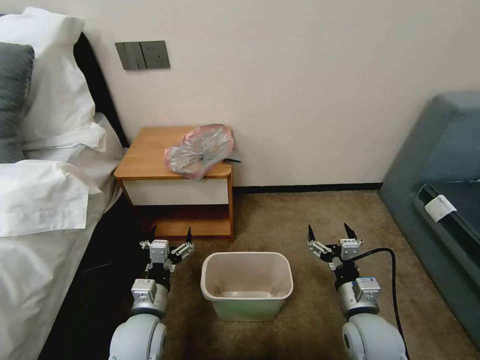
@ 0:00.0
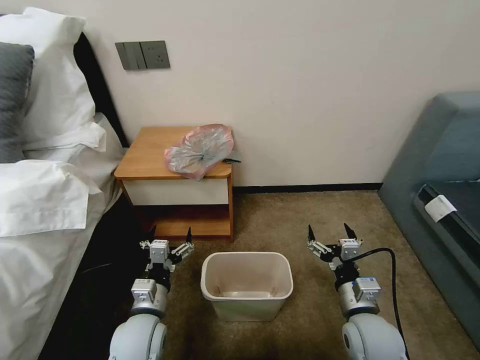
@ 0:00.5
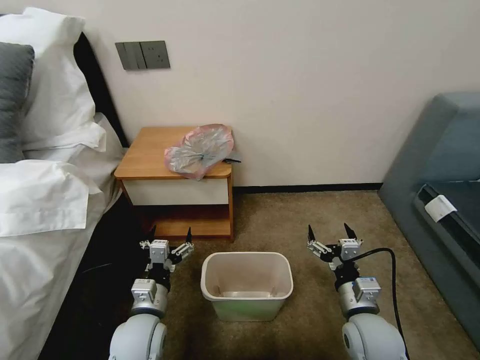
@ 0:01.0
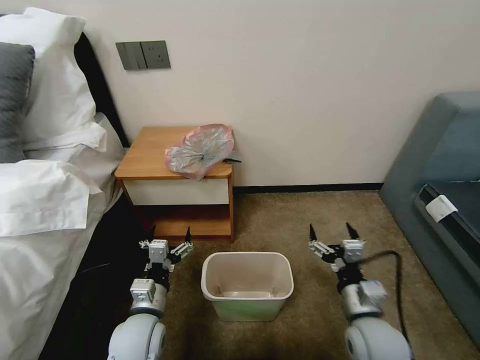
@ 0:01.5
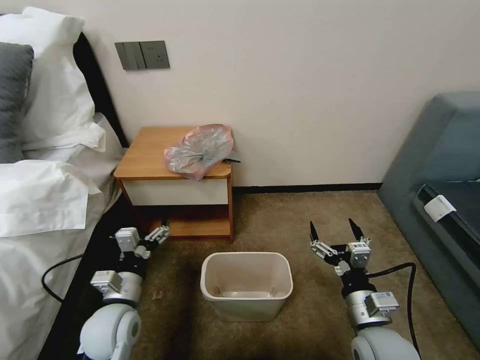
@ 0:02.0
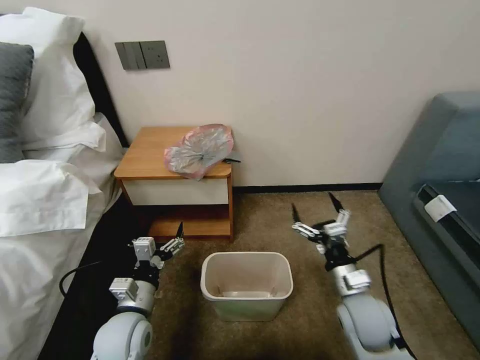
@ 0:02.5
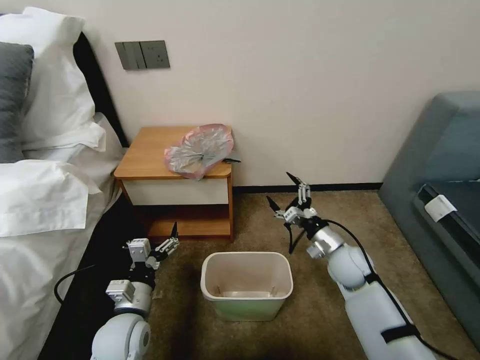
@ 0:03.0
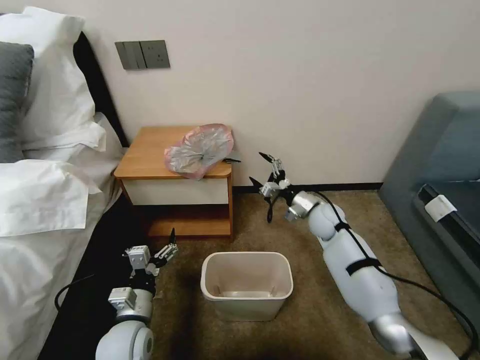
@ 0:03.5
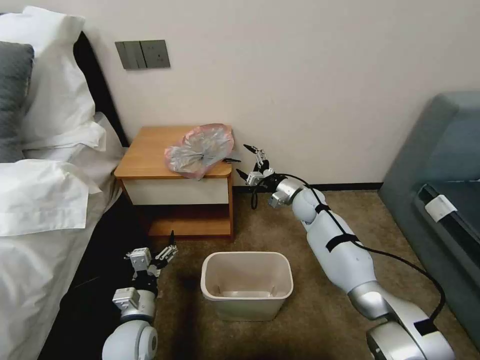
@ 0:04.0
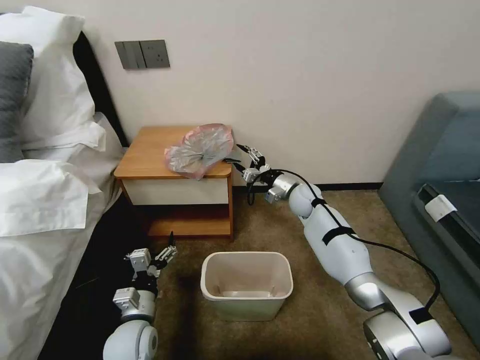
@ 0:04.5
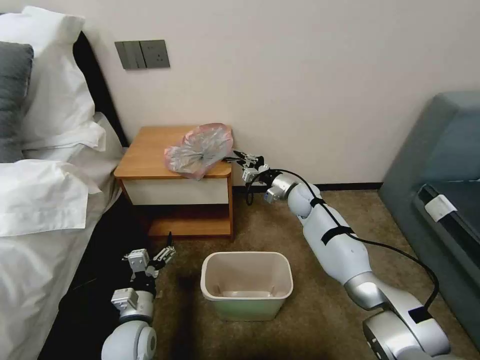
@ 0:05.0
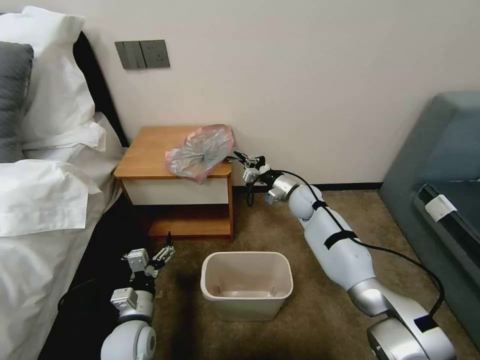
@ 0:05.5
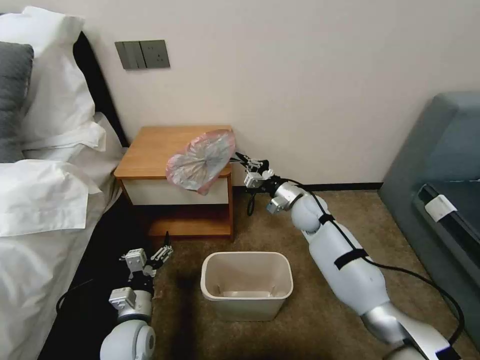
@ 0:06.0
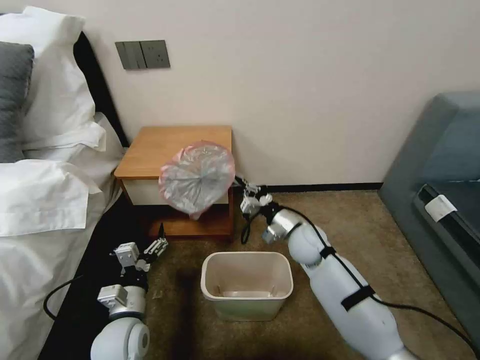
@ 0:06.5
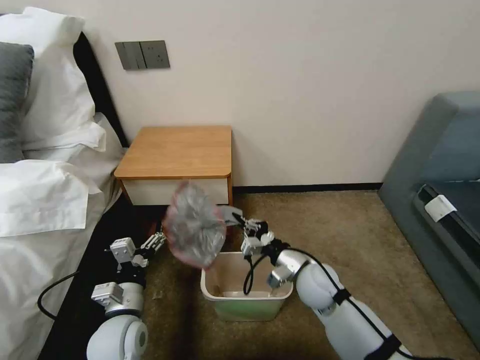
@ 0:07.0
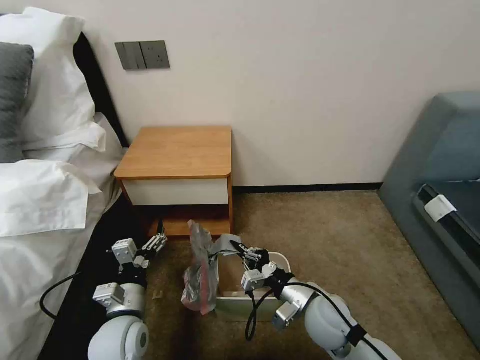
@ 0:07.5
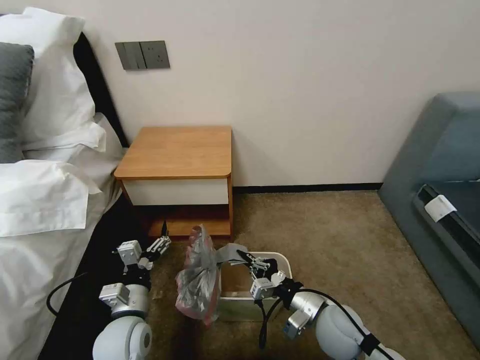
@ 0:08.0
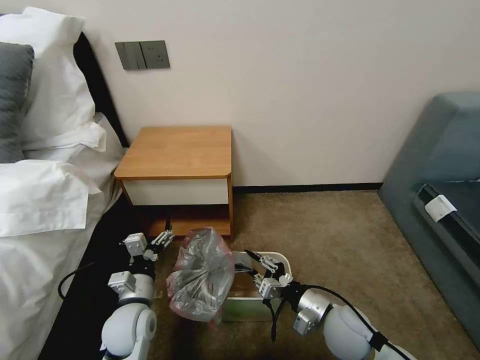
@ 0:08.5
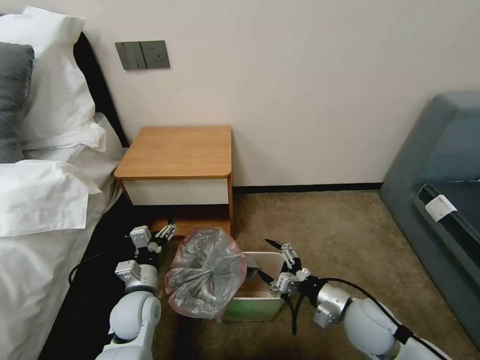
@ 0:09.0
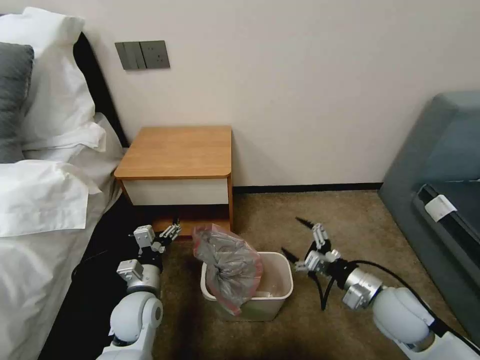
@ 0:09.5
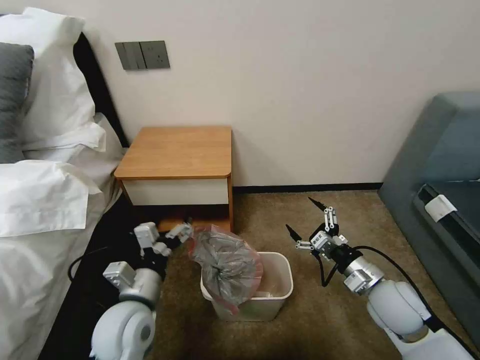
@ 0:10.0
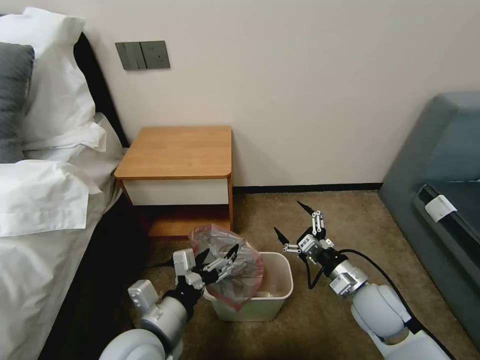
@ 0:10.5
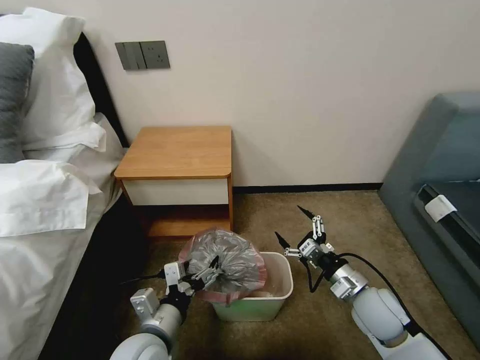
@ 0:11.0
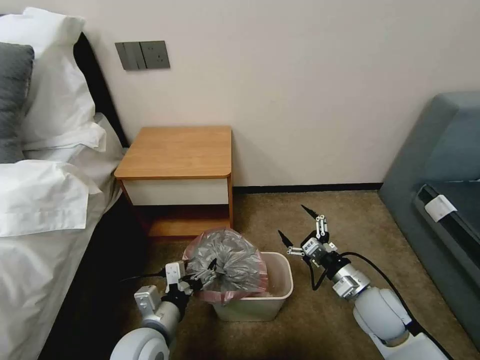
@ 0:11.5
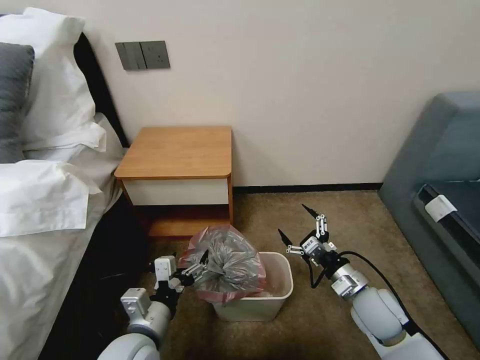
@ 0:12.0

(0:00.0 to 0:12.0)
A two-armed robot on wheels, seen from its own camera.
Task of the whole recording: Pick up the garbage bag from the table and place it over the trash can.
0:02.0 - 0:04.0: The right gripper travels forward by roughly 35 cm, while the left gripper is displaced downward by about 5 cm.
0:04.0 - 0:06.0: The right gripper is displaced backward by about 5 cm, and closes up.
0:06.0 - 0:08.0: The right gripper shifts some 25 cm backward.
0:08.0 - 0:10.0: The left gripper heads upward, covering some 5 cm, while the right gripper goes roughly 10 cm to the right and upward, and opens.
0:10.0 - 0:12.0: The left gripper moves approximately 5 cm.

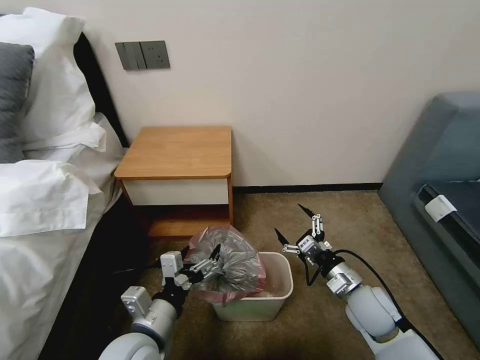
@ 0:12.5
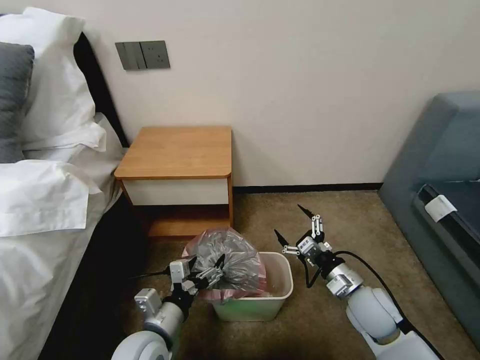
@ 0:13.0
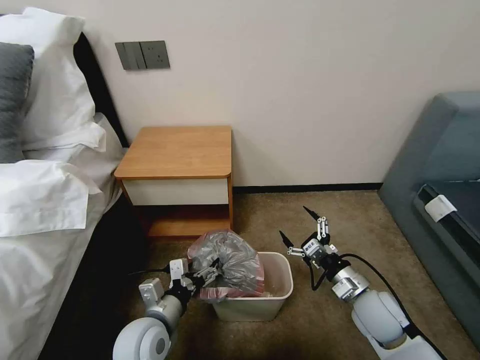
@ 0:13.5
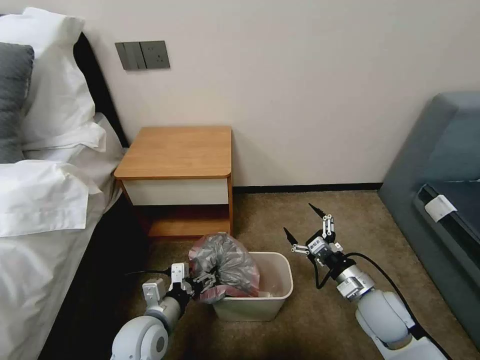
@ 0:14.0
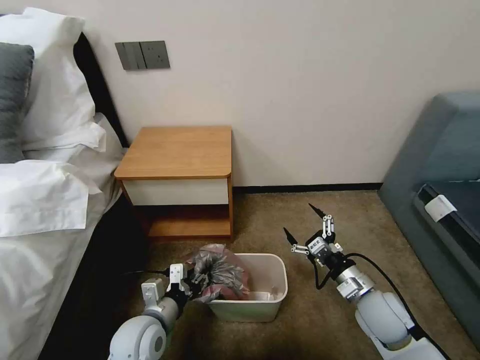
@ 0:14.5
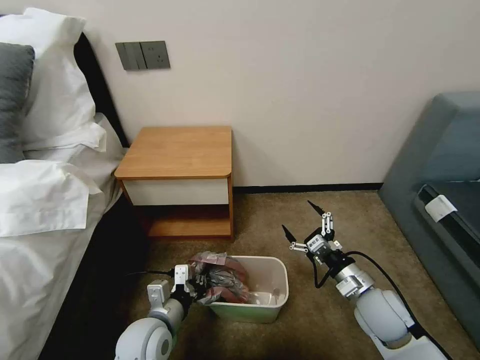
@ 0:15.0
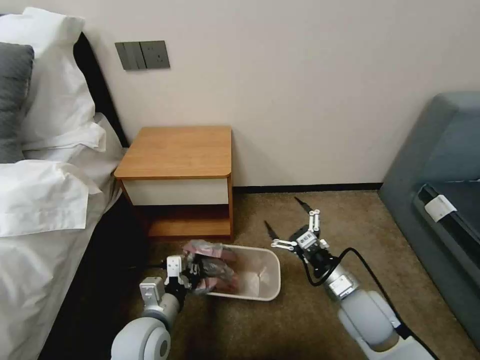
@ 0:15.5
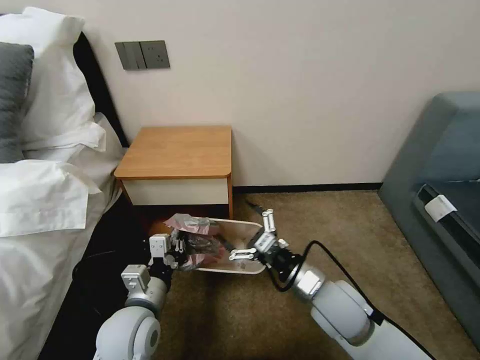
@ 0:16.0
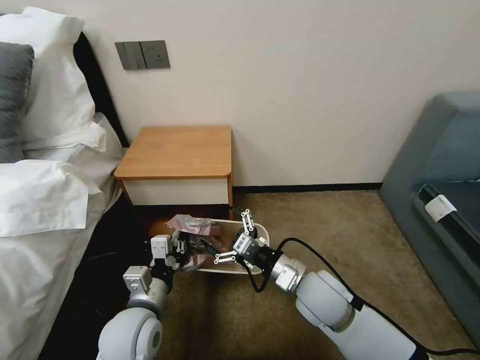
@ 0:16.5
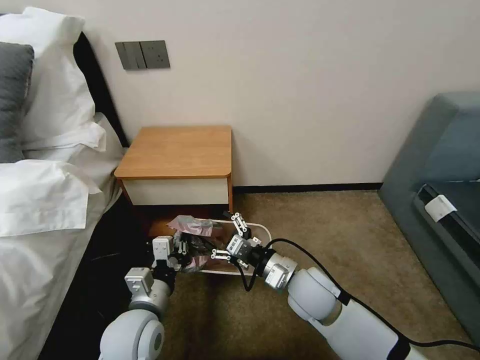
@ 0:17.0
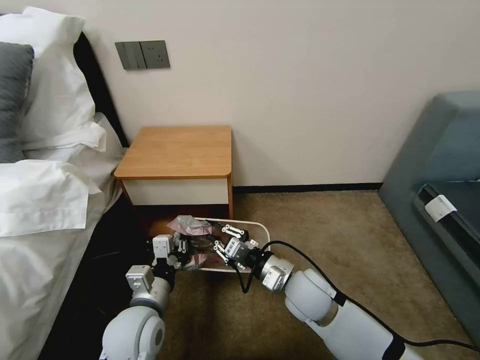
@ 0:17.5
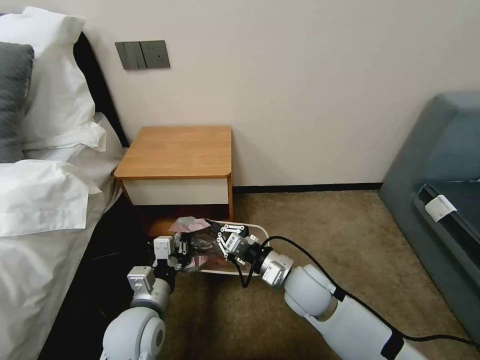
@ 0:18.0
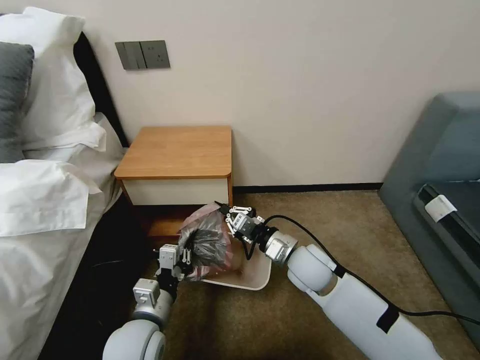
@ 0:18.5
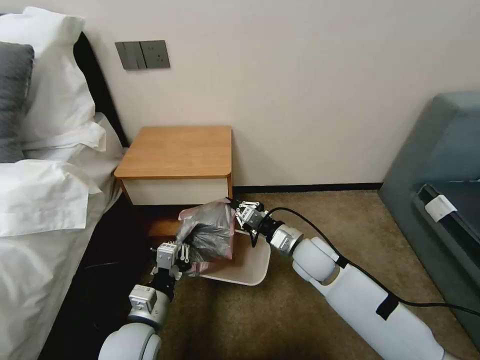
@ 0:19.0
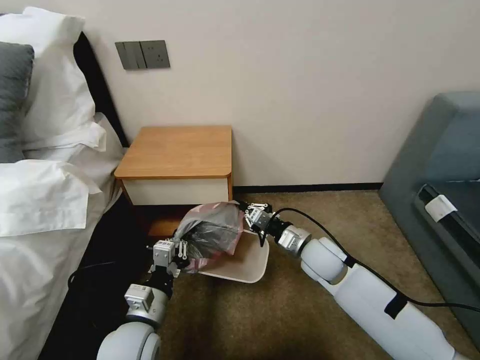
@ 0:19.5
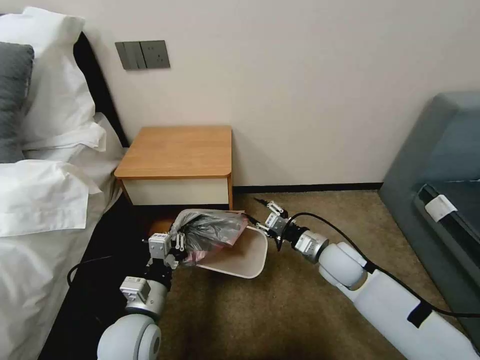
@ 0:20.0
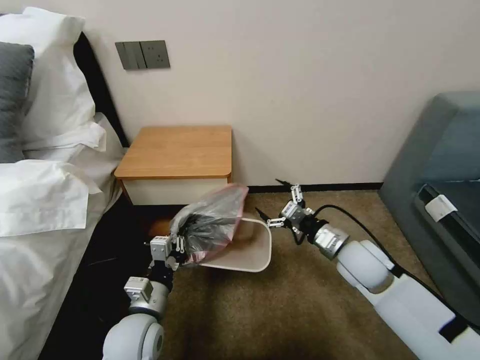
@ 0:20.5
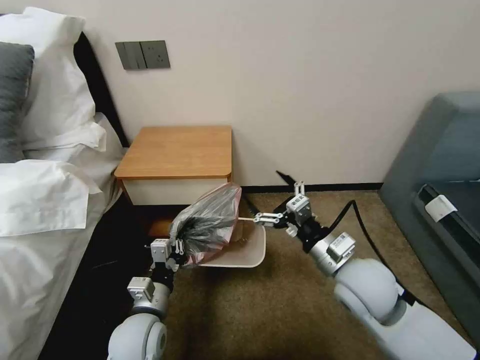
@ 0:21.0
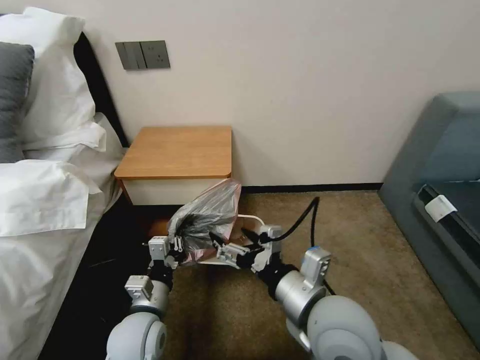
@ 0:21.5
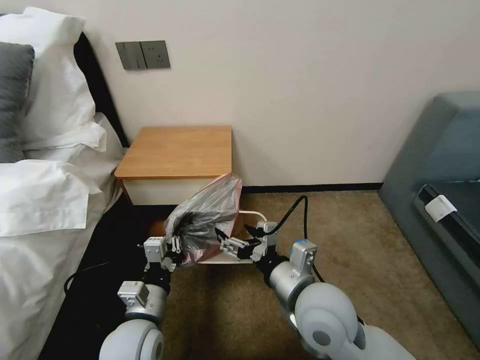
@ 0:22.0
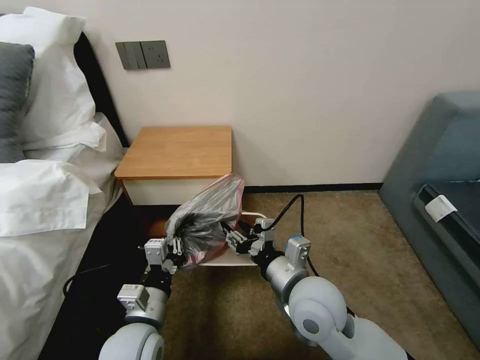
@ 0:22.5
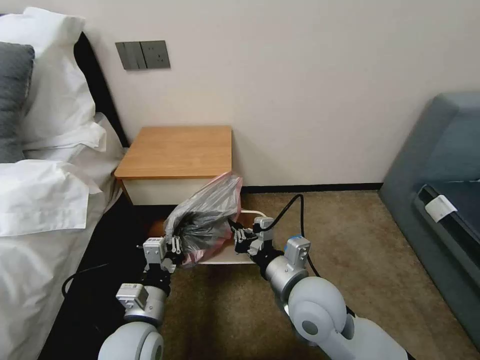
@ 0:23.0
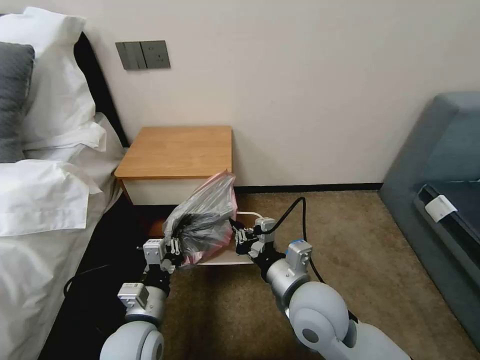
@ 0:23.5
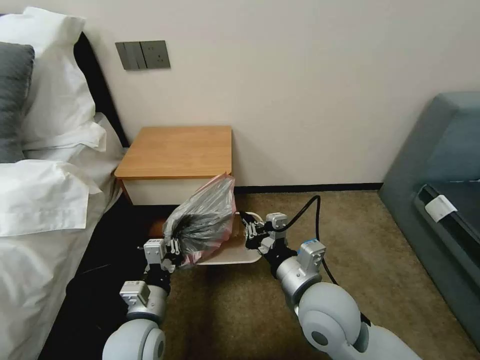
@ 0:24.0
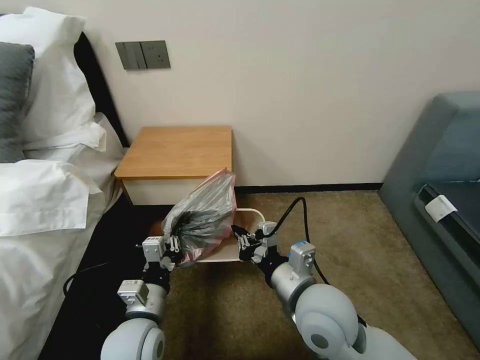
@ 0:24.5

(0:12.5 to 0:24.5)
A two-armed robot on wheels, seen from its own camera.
Task of the whole recording: Pick up the garbage bag from the table and place it over the trash can.
0:12.5 - 0:14.5: The left gripper moves downward, about 5 cm, and closes up.
0:14.5 - 0:16.5: The right gripper goes about 15 cm to the left and upward. The left gripper travels upward by roughly 5 cm, and closes up.
0:16.5 - 0:18.5: The right gripper goes about 5 cm forward, and closes.
0:18.5 - 0:20.5: The right gripper travels to the right by some 10 cm, and opens.
0:20.5 - 0:22.5: The right gripper moves to the left and backward, approximately 15 cm, and closes up.
0:22.5 - 0:24.5: The right gripper closes up.

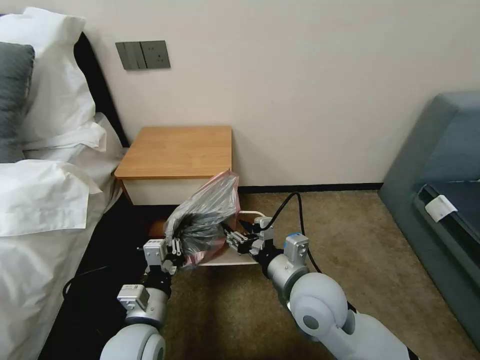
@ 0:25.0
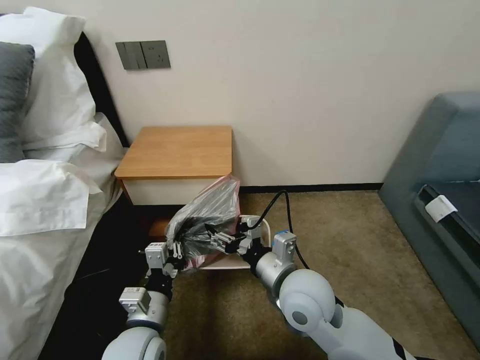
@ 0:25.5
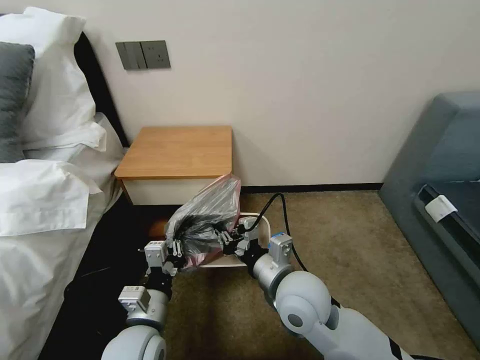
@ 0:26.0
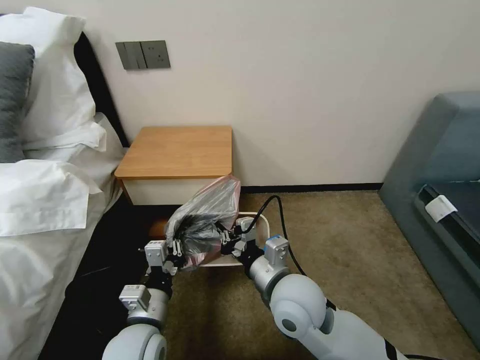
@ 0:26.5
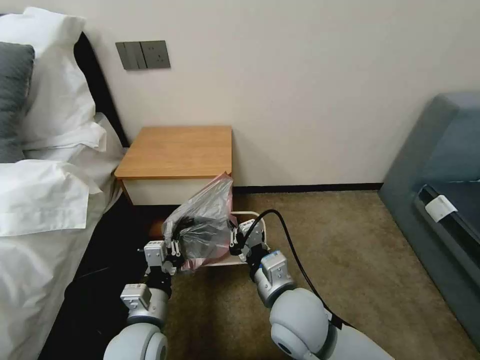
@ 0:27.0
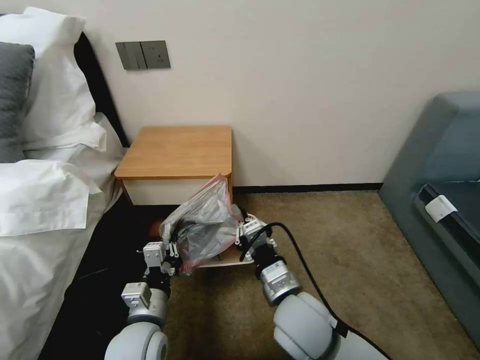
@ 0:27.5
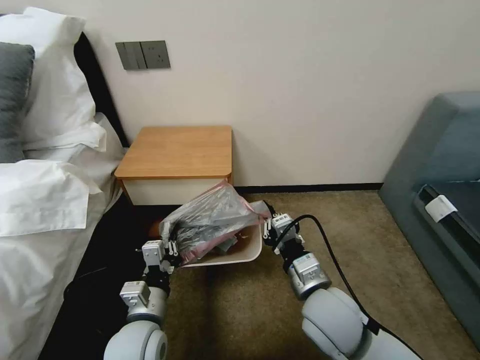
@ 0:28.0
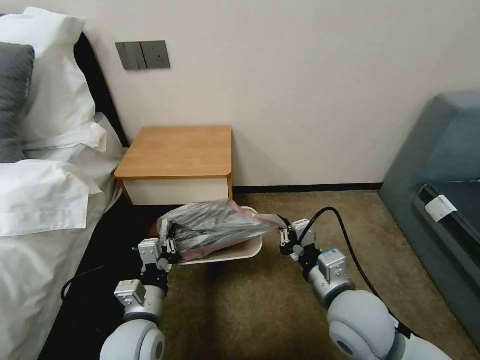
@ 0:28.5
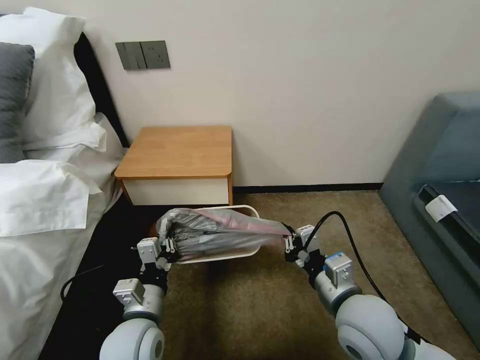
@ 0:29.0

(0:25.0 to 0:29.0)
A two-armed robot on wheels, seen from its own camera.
Task of the whole recording: Pick up the garbage bag from the table and place it over the trash can.
0:25.0 - 0:27.0: The right gripper closes up.
0:27.0 - 0:29.0: The right gripper is displaced to the right by about 10 cm.
